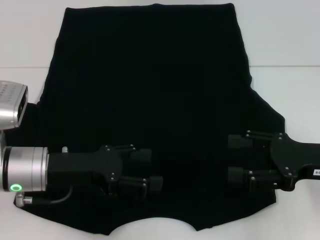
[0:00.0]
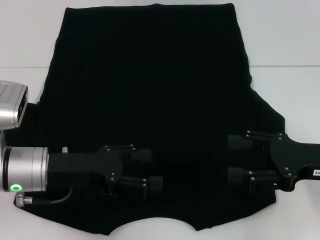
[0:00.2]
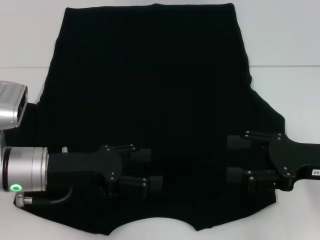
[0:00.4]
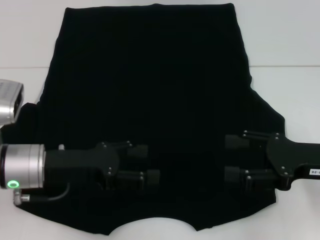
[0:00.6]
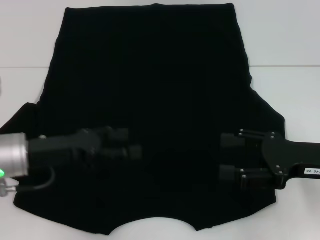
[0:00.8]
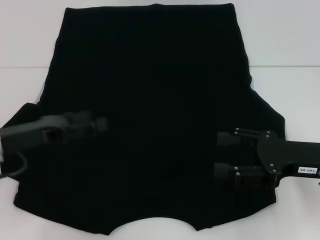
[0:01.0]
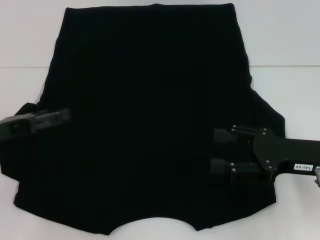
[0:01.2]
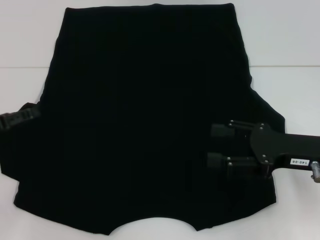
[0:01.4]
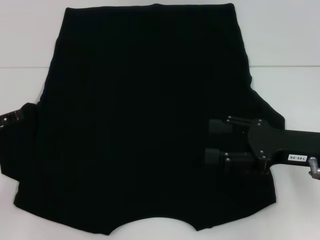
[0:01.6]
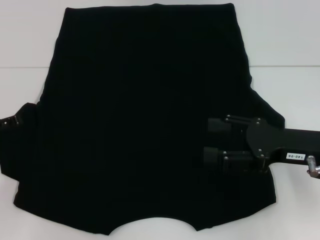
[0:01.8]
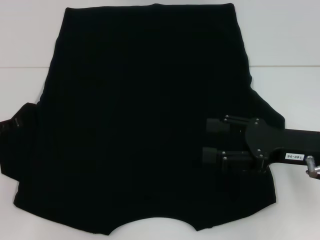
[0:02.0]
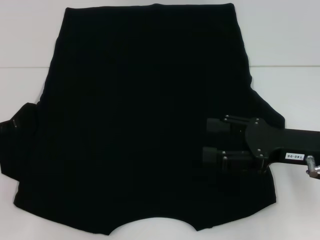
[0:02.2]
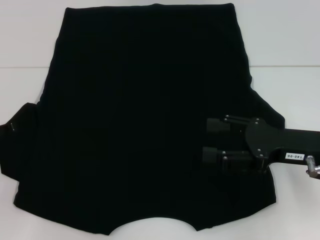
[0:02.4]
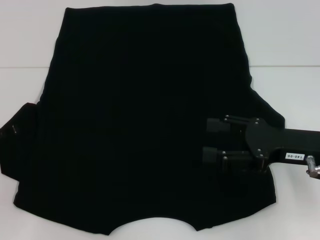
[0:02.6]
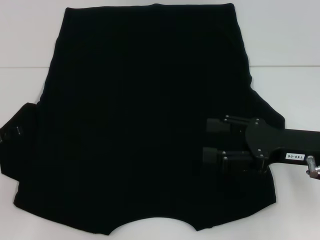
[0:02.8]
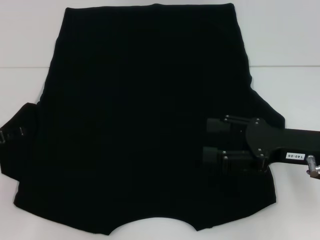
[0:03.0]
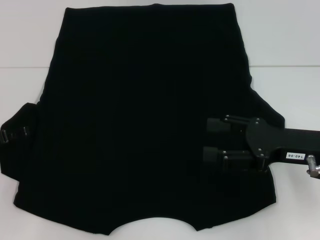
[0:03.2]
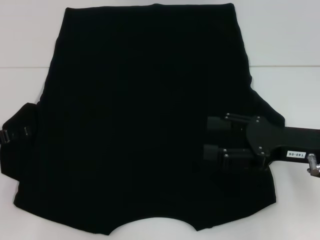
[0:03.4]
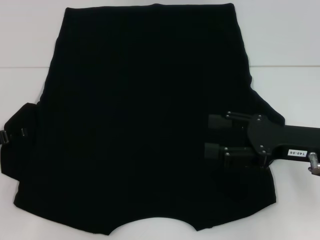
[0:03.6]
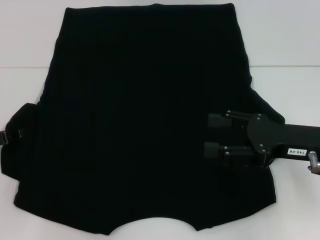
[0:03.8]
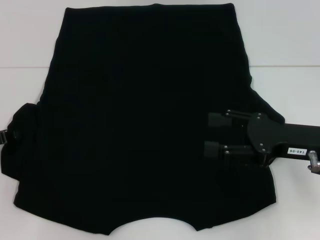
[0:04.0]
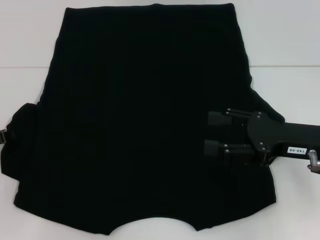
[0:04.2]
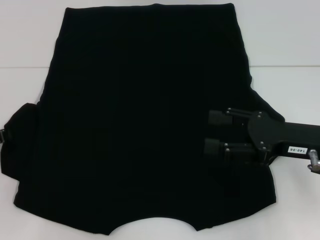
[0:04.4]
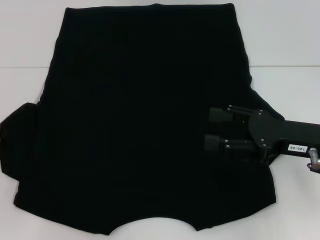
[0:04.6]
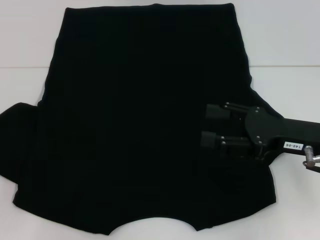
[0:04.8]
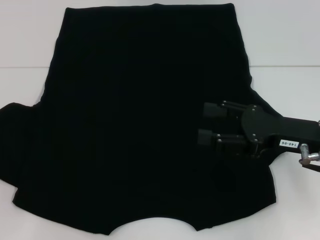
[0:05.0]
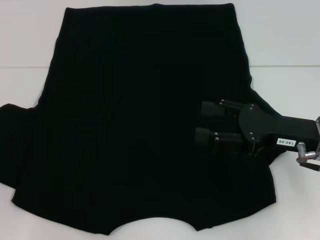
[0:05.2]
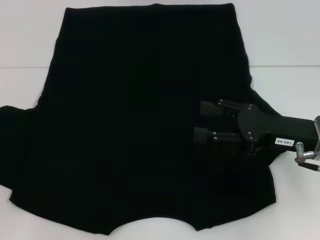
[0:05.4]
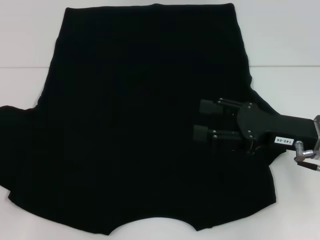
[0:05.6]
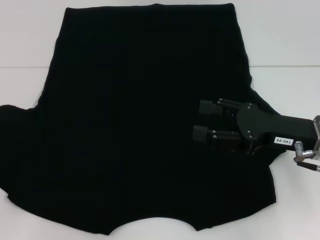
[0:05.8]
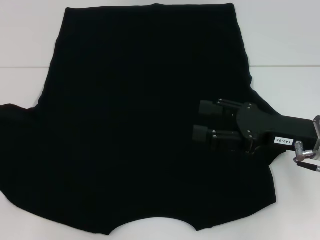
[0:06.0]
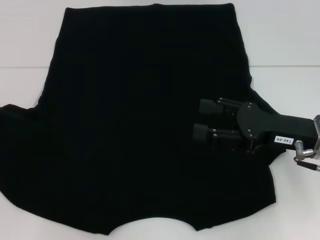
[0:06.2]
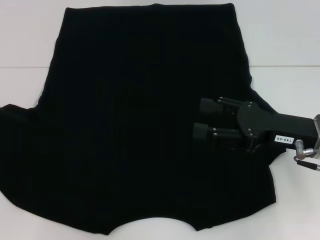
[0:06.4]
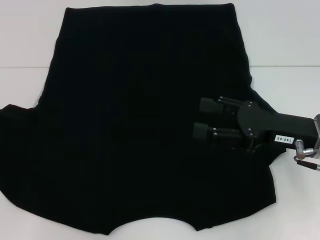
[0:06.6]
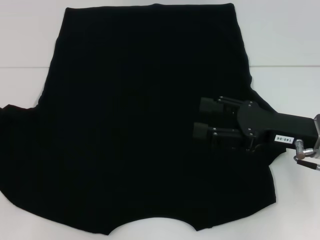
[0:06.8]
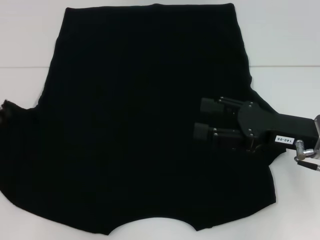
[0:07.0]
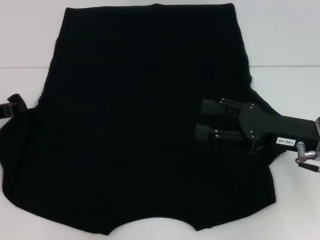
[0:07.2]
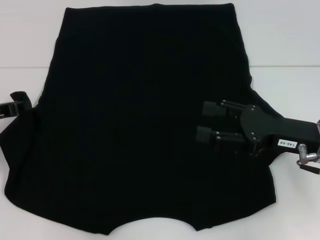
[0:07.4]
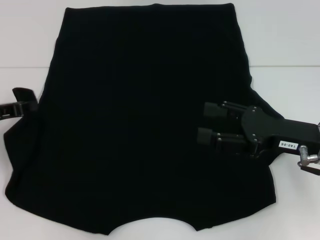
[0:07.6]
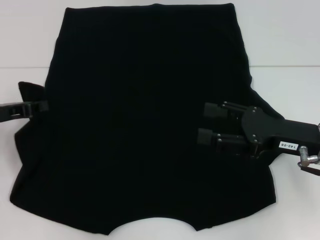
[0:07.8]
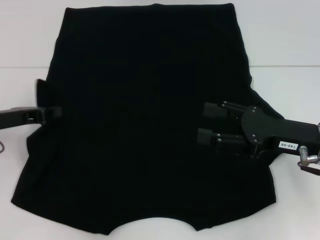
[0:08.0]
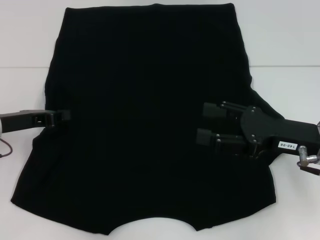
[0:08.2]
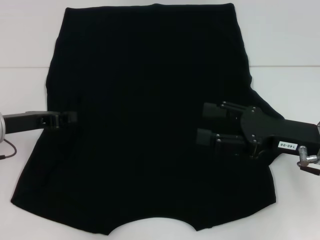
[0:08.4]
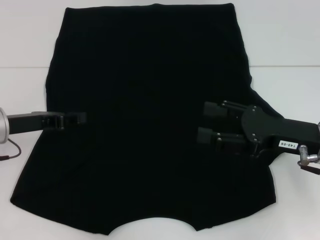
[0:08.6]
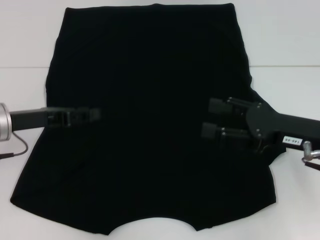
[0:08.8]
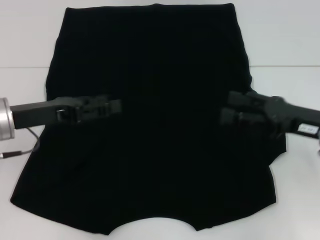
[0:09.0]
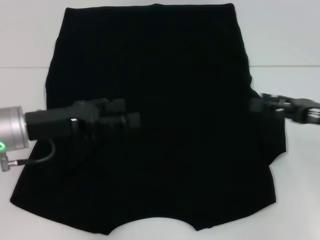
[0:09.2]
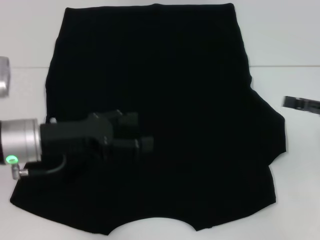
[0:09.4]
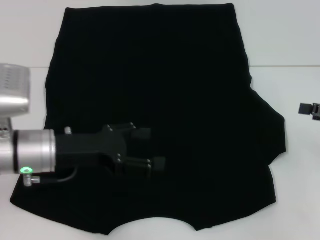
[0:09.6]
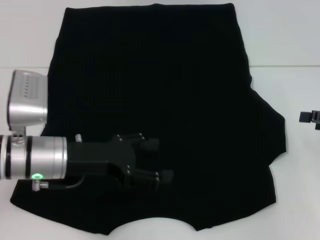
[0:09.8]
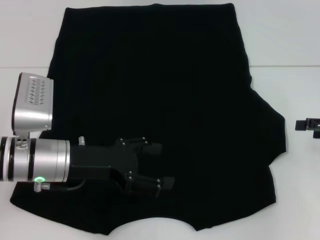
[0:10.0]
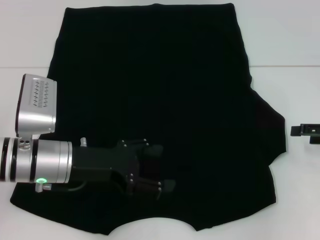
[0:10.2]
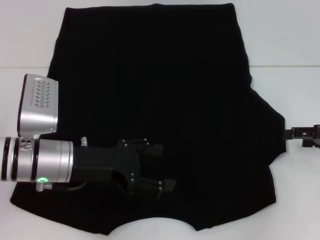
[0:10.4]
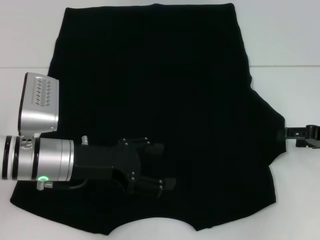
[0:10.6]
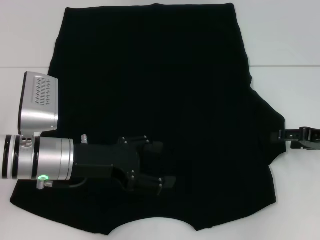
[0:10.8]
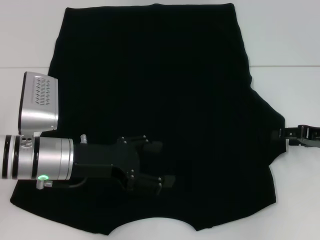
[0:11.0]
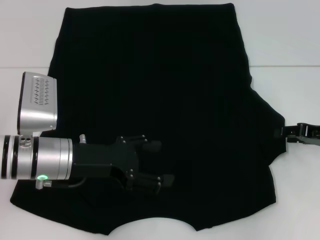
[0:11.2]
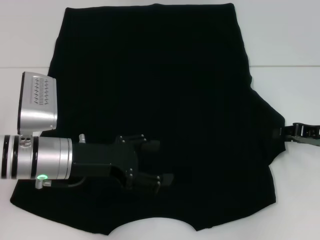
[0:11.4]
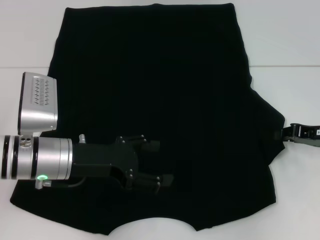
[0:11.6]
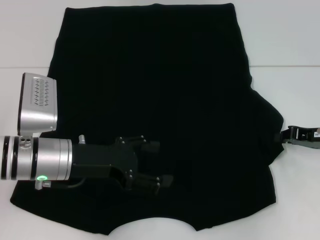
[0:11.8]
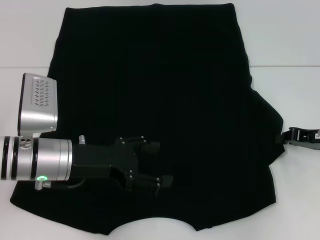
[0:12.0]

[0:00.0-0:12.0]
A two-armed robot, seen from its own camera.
Step, 0:00.0 to 0:10.2: Fold the bottom left sleeve with your left hand.
0:00.0 to 0:01.6: The left gripper shifts roughly 15 cm to the left.
0:01.6 to 0:03.0: The grippers stay close to where they were, moving slightly.
0:04.4 to 0:06.0: The grippers make only small movements.
0:06.0 to 0:07.6: The left gripper heads to the right, covering roughly 5 cm.
0:07.6 to 0:09.0: The left gripper shifts about 10 cm to the right, and opens.
0:09.0 to 0:10.4: Both grippers travel together to the right, some 10 cm. The left gripper opens.
0:10.4 to 0:12.0: The right gripper closes.

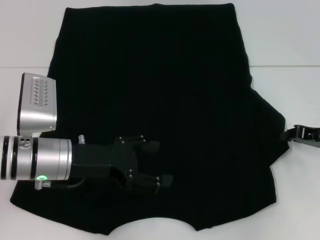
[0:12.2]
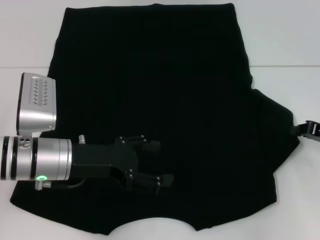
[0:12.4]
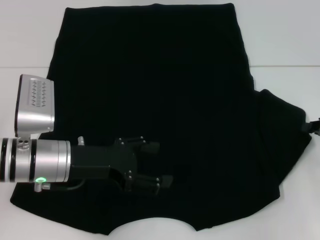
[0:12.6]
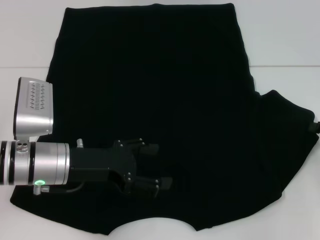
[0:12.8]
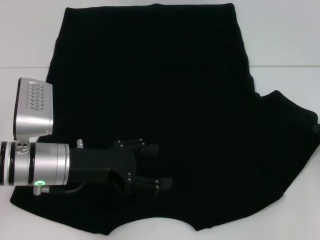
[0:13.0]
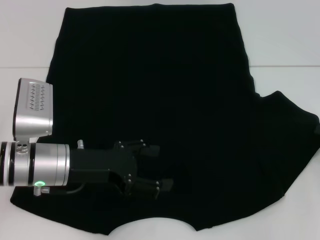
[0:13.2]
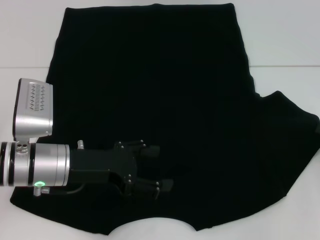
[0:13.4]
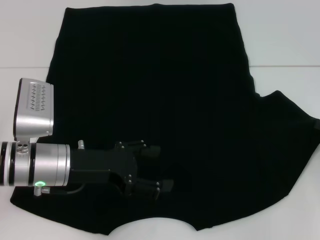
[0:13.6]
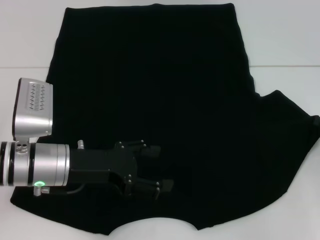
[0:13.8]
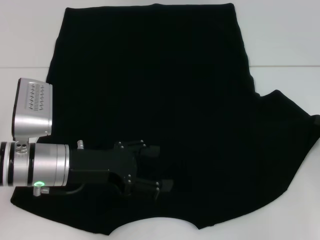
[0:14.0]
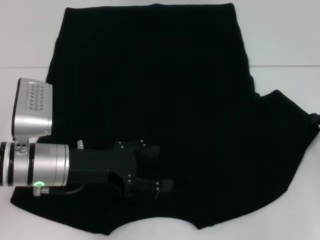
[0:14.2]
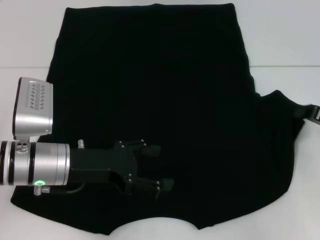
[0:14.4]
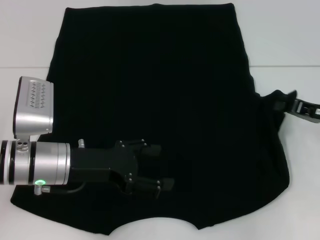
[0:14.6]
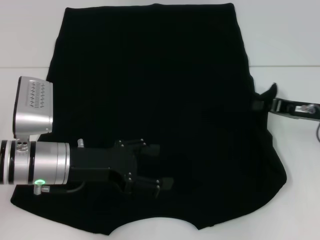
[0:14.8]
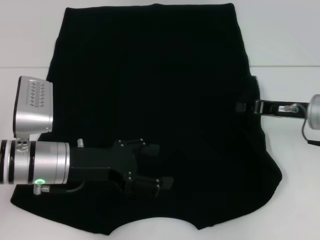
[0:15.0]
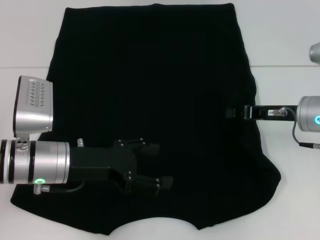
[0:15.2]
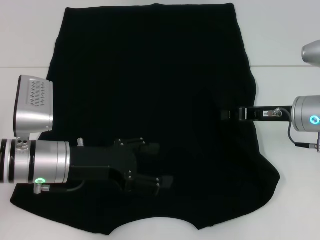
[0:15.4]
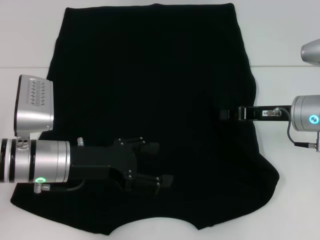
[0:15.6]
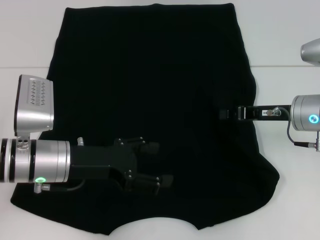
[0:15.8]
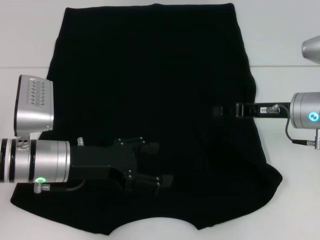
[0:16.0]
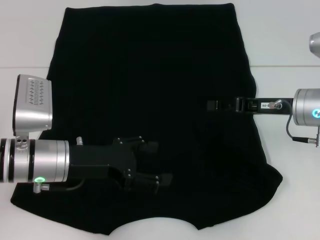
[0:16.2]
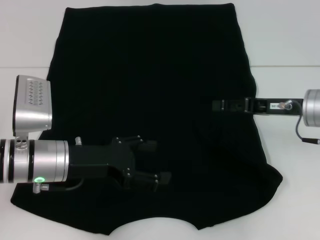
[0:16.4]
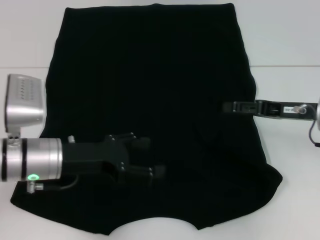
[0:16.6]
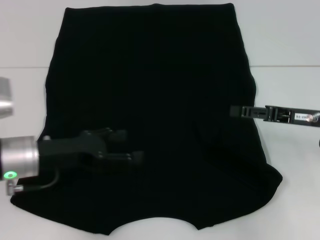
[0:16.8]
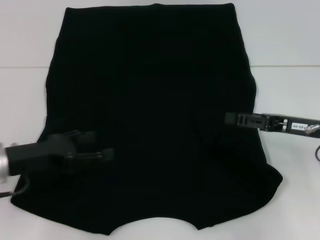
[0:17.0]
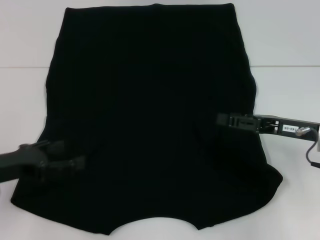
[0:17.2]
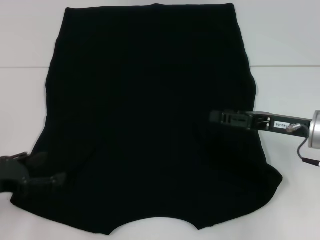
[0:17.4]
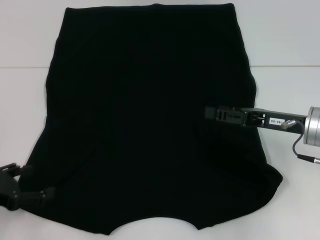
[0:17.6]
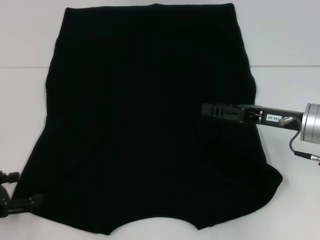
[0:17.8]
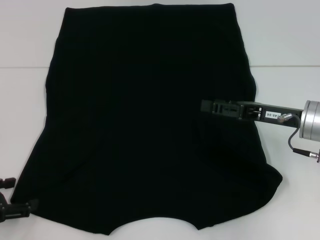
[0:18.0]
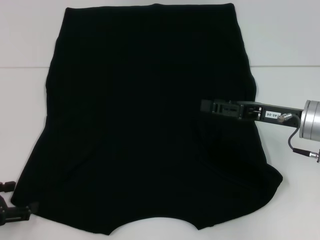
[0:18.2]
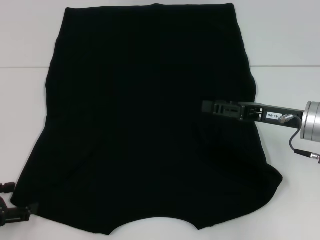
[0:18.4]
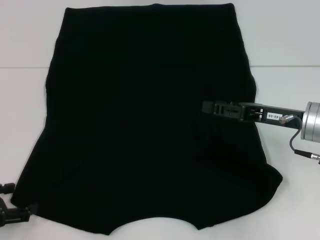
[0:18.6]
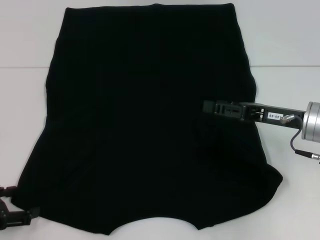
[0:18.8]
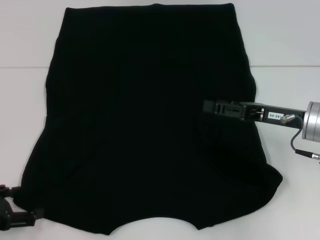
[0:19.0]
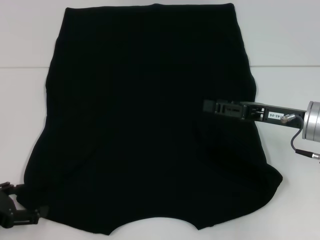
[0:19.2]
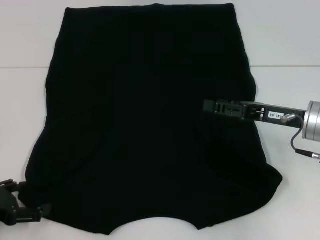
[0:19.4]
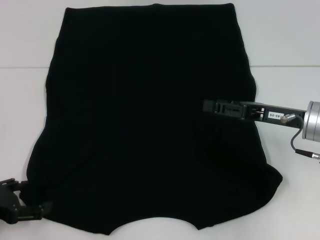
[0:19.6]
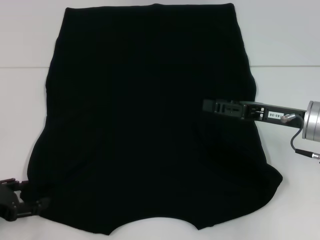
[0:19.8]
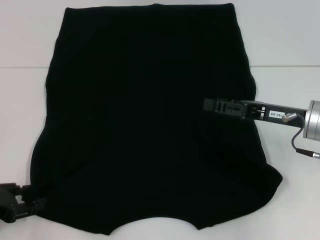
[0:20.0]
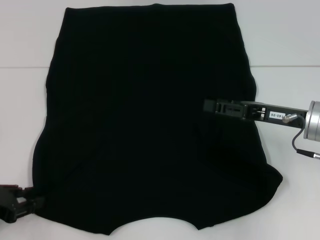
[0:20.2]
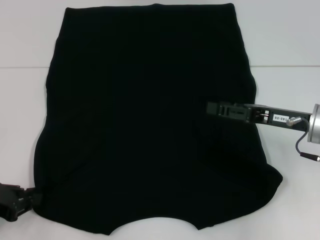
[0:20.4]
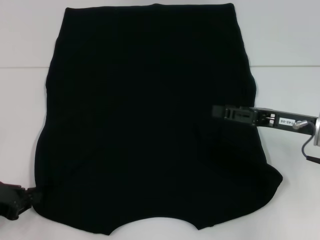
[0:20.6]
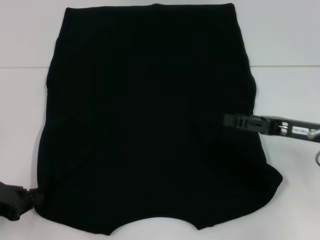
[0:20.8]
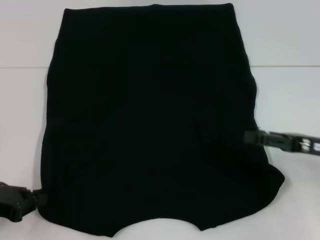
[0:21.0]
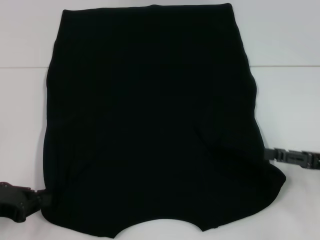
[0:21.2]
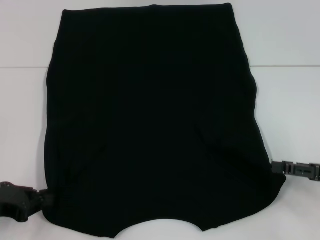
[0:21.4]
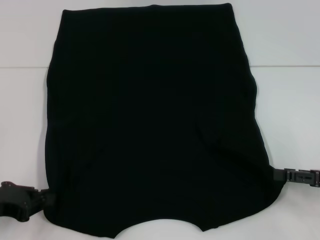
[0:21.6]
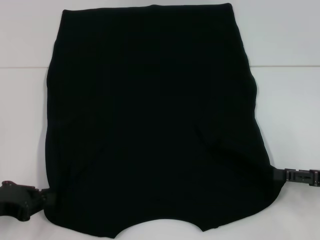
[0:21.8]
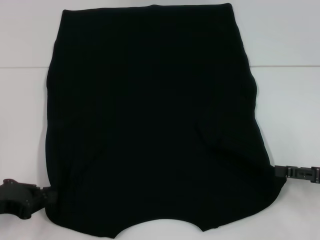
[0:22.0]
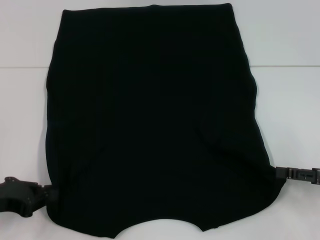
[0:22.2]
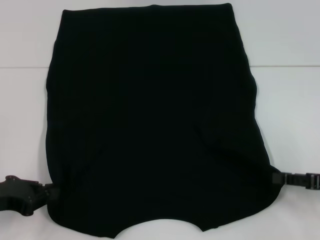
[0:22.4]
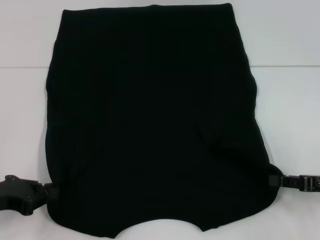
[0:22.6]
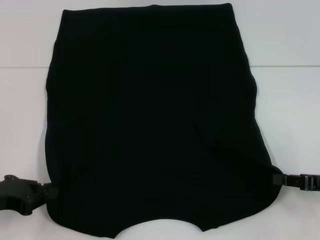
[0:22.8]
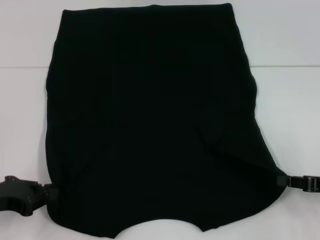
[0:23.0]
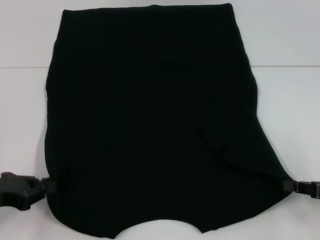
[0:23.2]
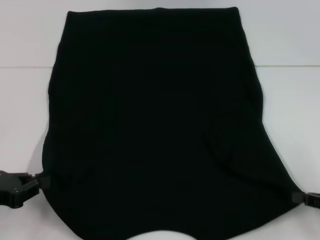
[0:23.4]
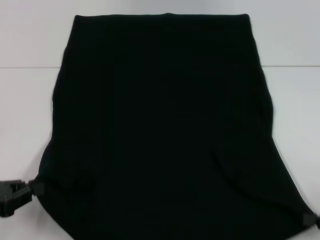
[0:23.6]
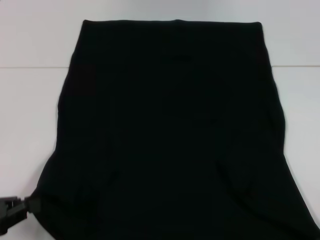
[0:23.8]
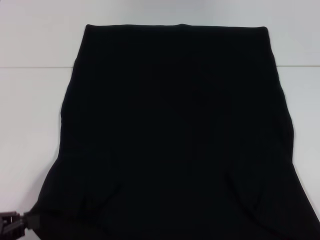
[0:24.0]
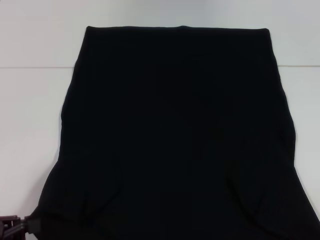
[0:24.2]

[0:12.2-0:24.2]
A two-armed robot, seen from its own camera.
Step, 0:12.2 to 0:16.4: Fold the bottom right sleeve with your right hand.
Step, 0:16.6 to 0:23.4: Grab the bottom left corner with your left hand.
Step, 0:16.6 to 0:23.4: Grab the bottom right corner with your right hand.
0:12.2 to 0:13.8: The grippers move only a little.
0:13.8 to 0:15.2: The right gripper shifts some 10 cm to the left.
0:15.2 to 0:16.6: The right gripper opens its fingers.
0:16.6 to 0:18.2: The left gripper shifts some 15 cm to the left and backward.
0:18.2 to 0:19.8: There are only small adjustments of the grippers.
0:19.8 to 0:21.2: The left gripper closes up, while the right gripper shifts approximately 10 cm to the right and backward.
0:21.2 to 0:22.6: The grippers make only small movements.
0:22.6 to 0:24.2: The right gripper goes some 15 cm backward and to the right, and closes. Meanwhile the left gripper travels backward by approximately 10 cm.
